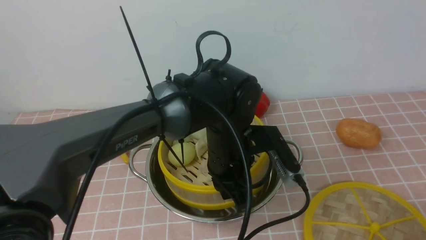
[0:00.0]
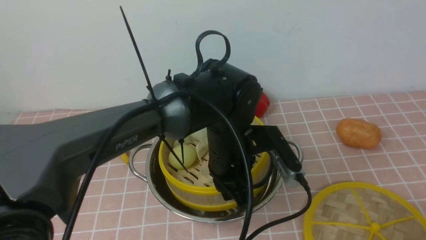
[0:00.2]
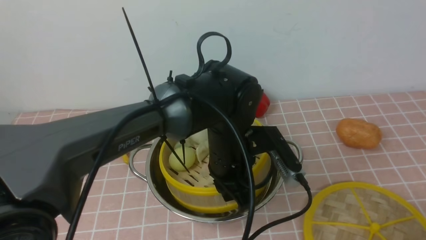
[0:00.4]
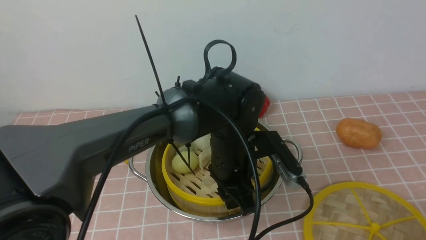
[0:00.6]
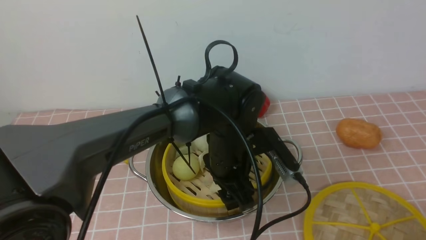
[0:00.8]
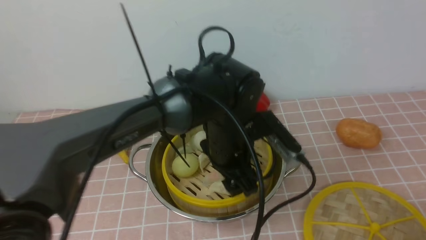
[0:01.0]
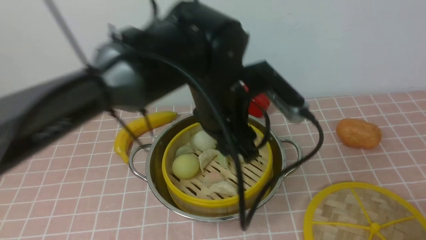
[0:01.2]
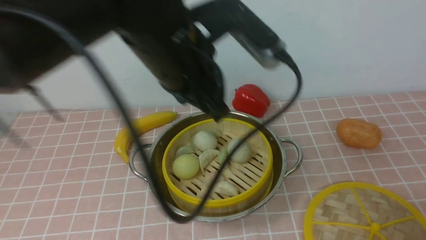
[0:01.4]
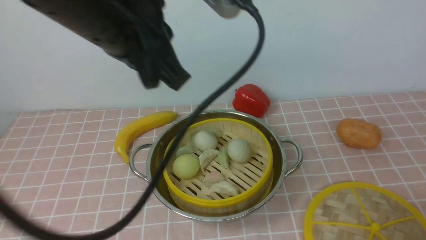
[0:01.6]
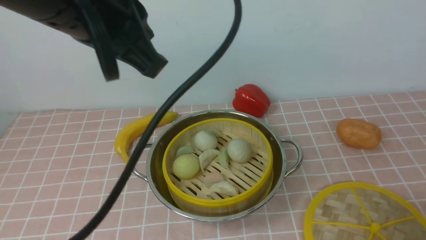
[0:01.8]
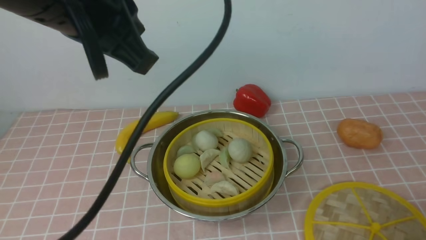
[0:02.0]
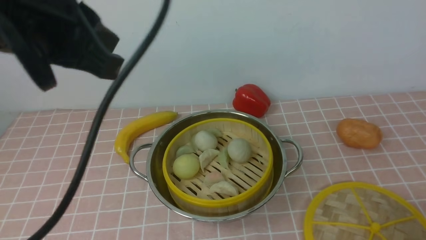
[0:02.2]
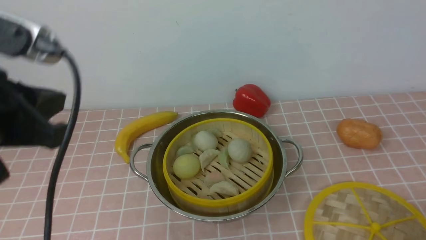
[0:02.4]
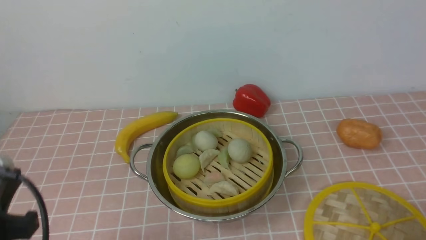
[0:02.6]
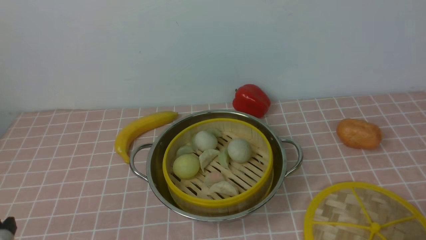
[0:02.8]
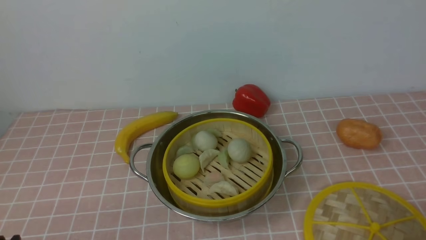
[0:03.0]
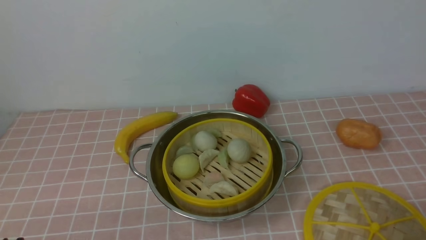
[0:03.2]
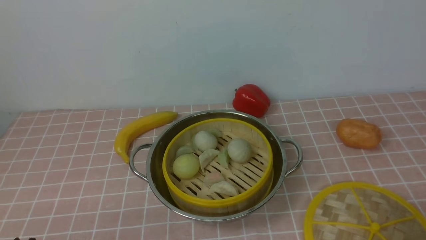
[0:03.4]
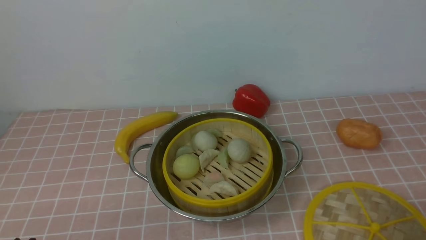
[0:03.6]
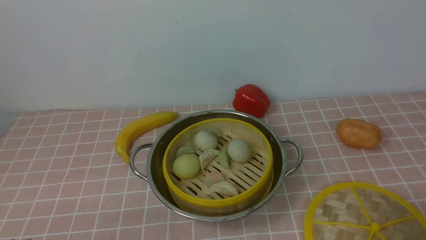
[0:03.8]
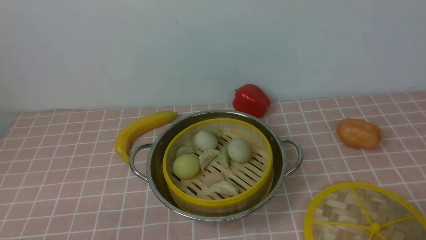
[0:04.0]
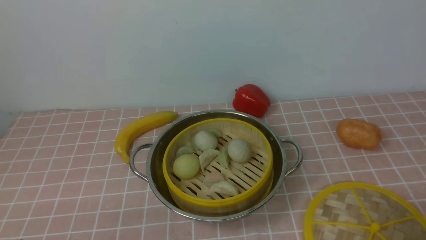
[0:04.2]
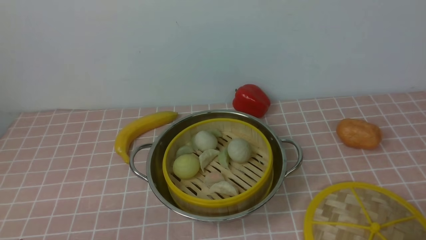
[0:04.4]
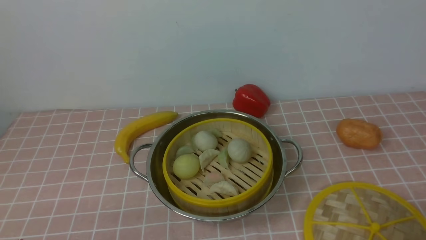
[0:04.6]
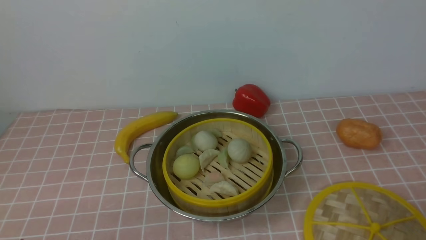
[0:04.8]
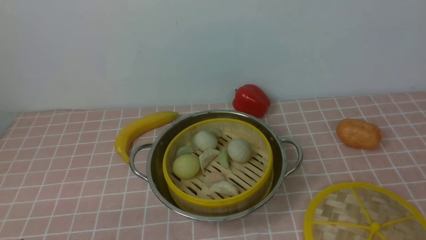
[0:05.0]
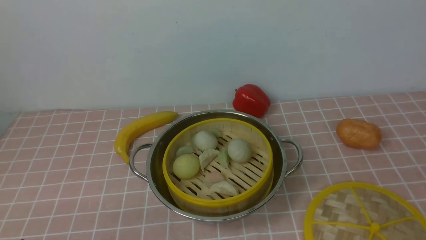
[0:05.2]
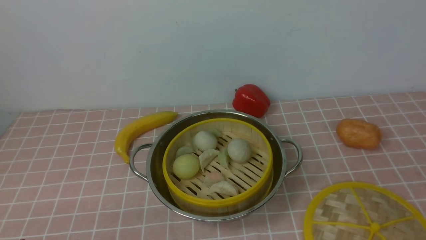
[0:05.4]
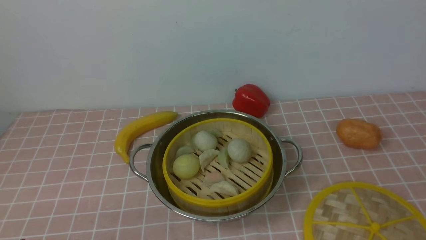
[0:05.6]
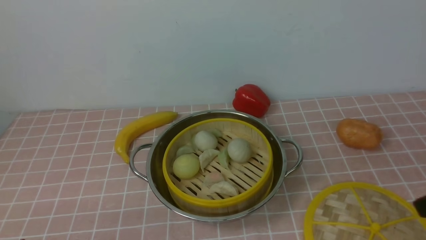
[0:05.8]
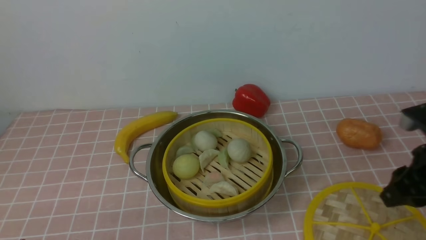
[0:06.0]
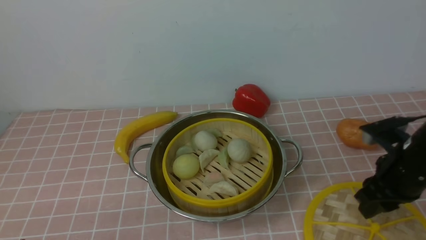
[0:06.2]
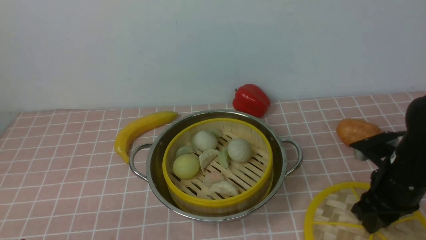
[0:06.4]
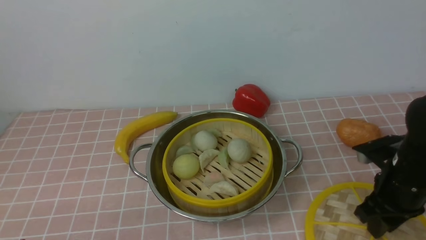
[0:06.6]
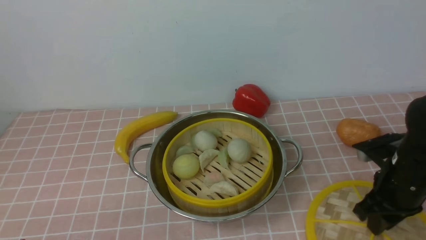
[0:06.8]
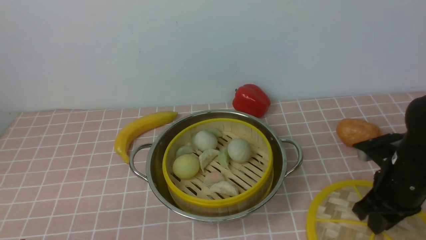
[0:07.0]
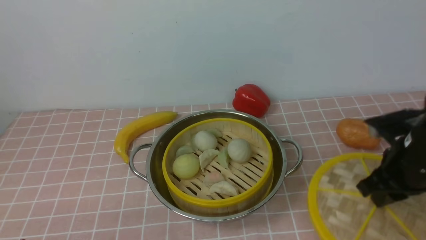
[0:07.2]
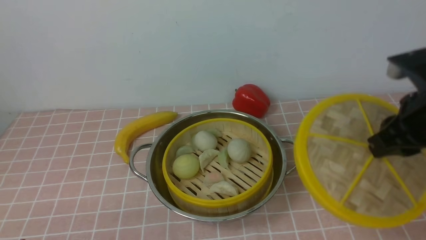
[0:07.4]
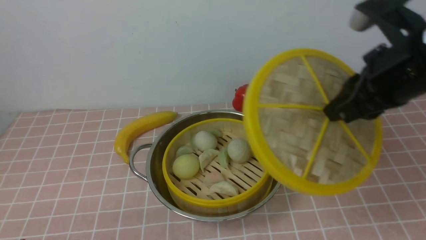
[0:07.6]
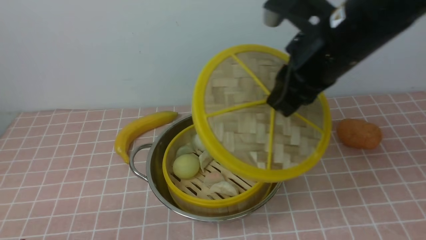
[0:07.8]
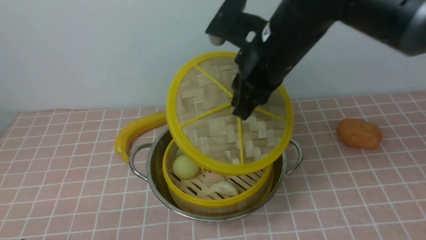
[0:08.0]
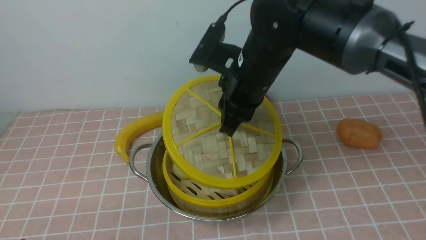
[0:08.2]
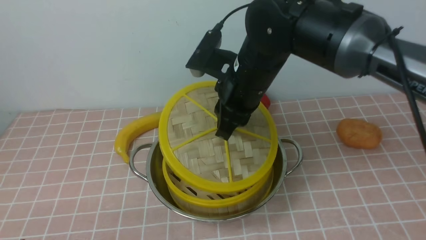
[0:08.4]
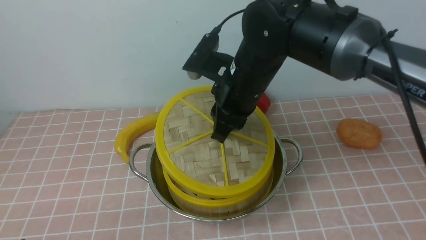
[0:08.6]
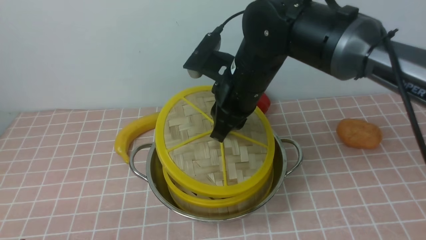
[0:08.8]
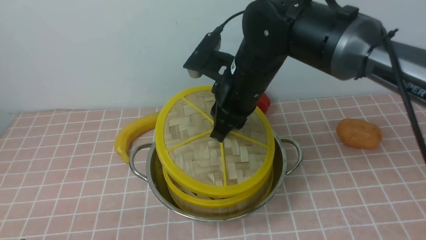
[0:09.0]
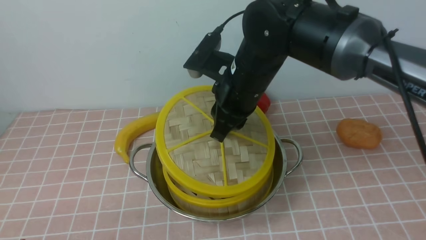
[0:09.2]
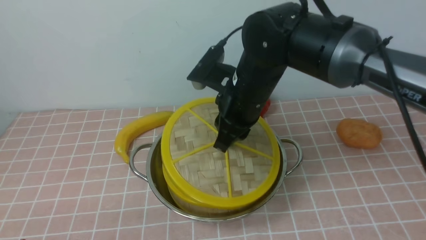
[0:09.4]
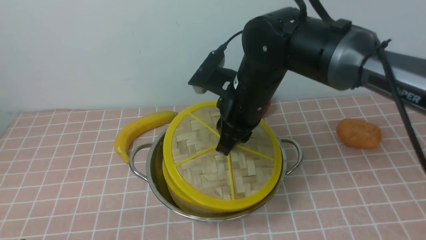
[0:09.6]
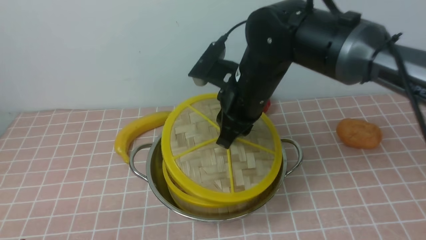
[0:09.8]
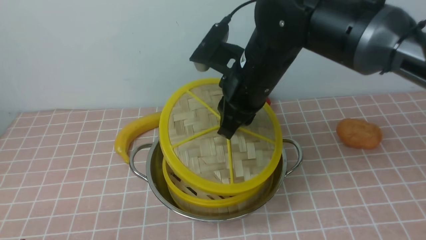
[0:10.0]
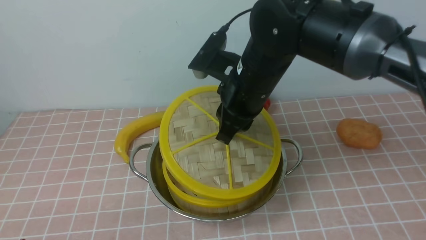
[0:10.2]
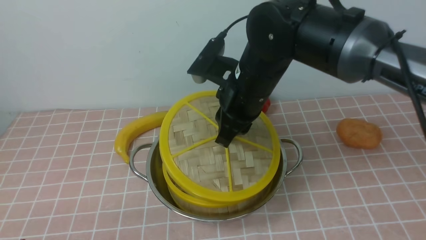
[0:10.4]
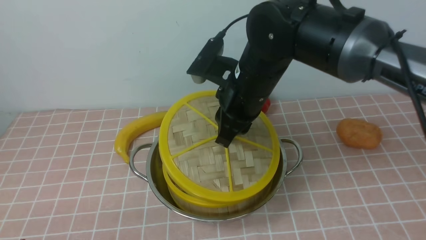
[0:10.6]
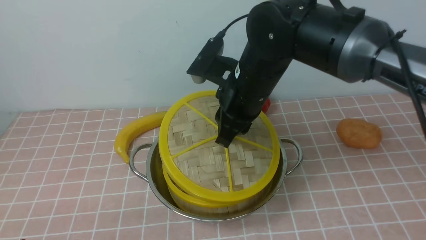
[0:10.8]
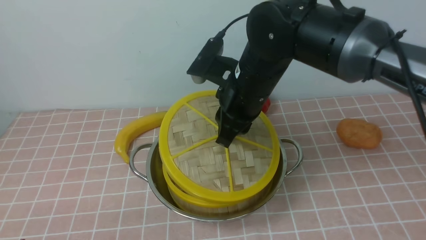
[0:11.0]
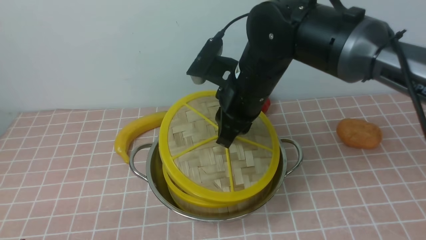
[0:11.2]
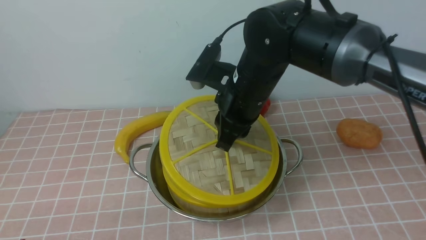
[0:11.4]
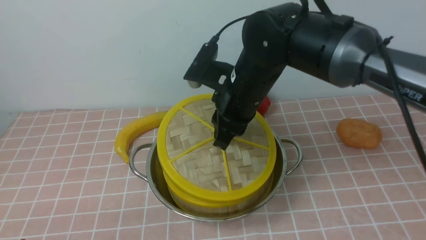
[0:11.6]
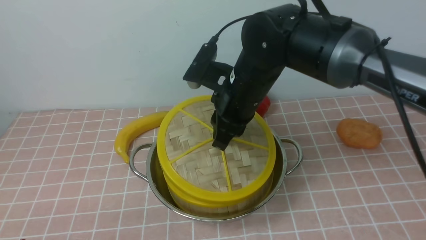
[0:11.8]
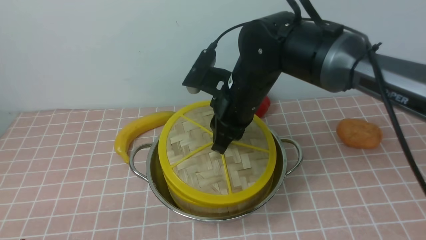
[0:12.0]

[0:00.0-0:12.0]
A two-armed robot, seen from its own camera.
Task of the whole recording: place the steamer in the pot on the pink tablecloth, and put the lid on the steamer.
Step, 0:01.2 to 0:07.0: use the right arm to lift the lid of the steamer.
0:00.0 to 0:01.6: The left gripper moves upward, some 20 cm, and opens, then closes again.
0:01.6 to 0:03.0: The left gripper goes roughly 35 cm downward, backward and to the left.
0:04.4 to 0:06.0: The right gripper goes some 15 cm forward and upward.
0:06.0 to 0:07.6: The right gripper moves to the left, upward and forward, some 10 cm, and closes up.
0:07.6 to 0:09.0: The right gripper goes approximately 20 cm to the left and forward.
0:09.0 to 0:12.0: There are only small adjustments of the grippers.

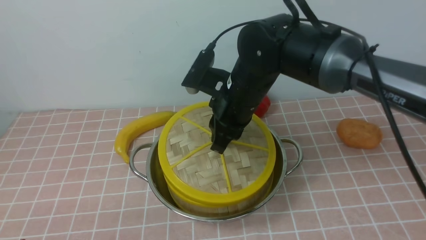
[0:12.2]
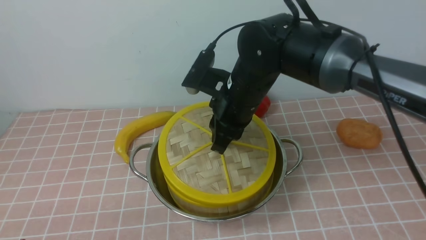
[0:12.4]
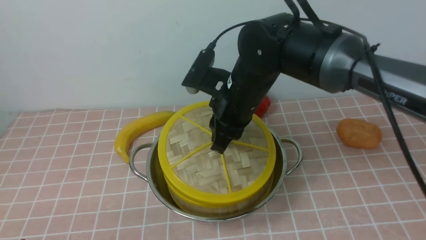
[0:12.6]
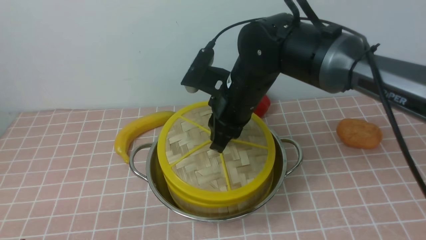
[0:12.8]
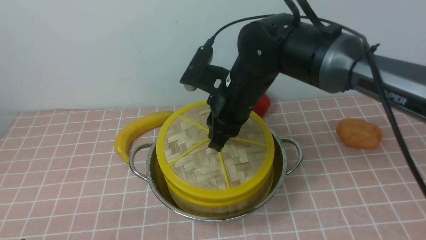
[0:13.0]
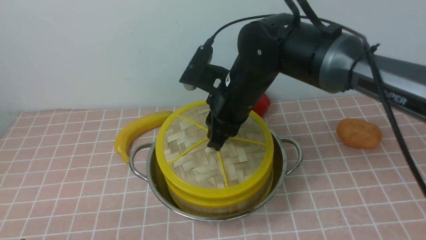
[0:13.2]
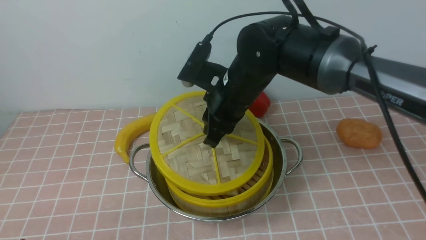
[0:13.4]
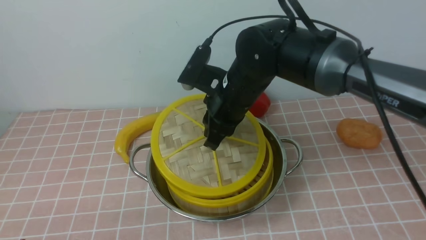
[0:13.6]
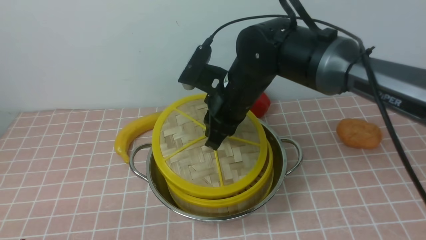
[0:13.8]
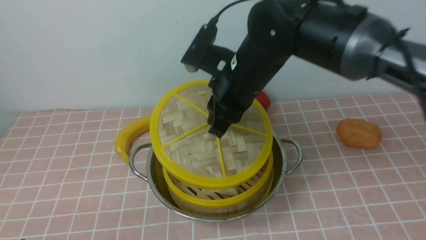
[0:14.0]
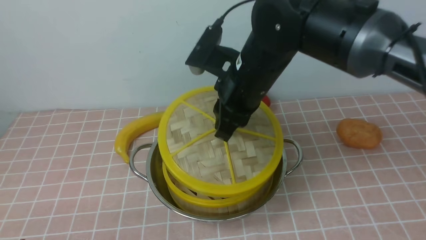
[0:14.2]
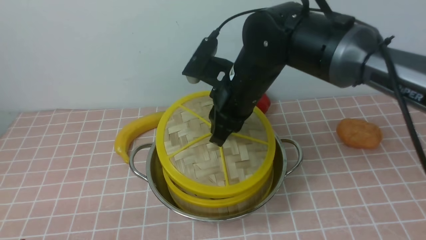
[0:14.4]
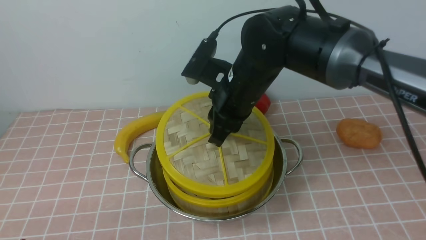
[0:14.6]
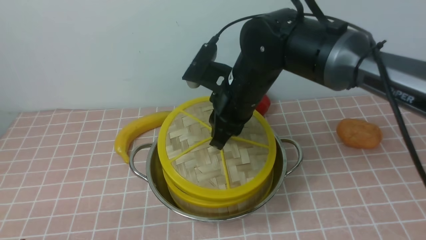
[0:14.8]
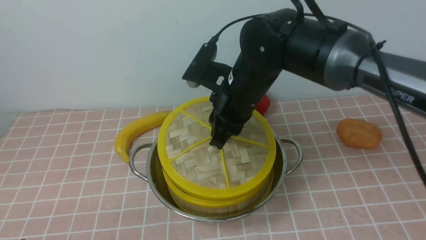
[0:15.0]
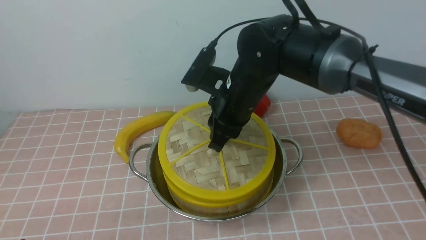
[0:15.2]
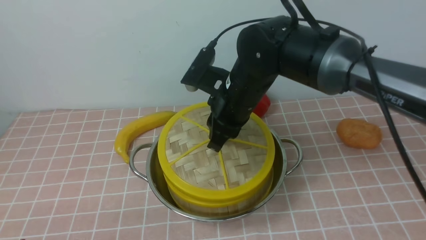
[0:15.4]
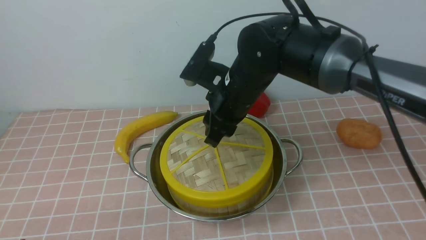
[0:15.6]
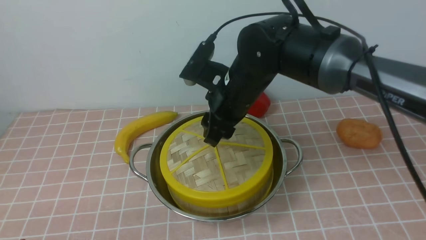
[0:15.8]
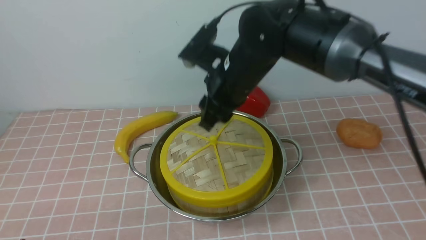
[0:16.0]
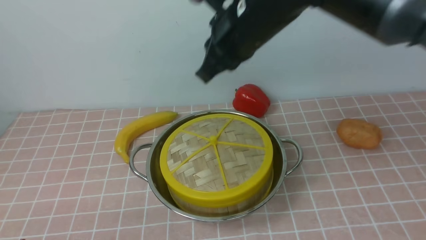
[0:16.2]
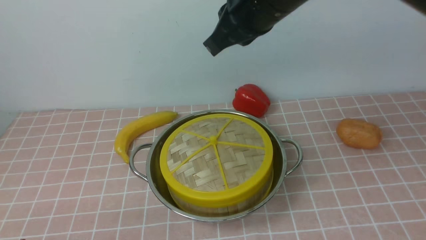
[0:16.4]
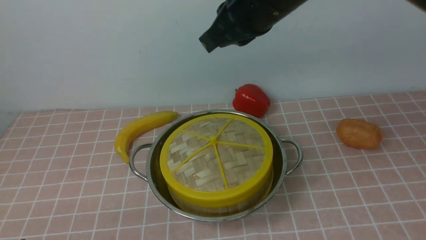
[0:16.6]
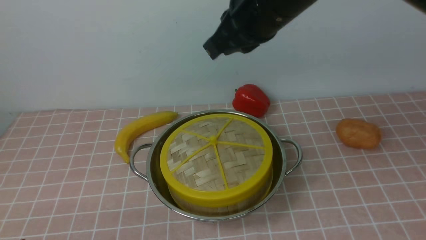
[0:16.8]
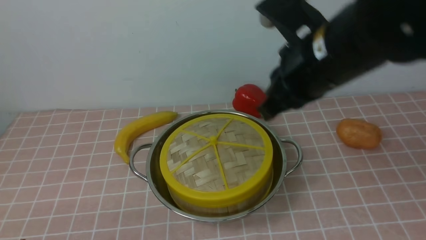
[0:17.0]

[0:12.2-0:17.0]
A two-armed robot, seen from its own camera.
Task of the whole recording: place the steamer in the pot on the pink tablecloth, and put the lid on the steamer.
Step, 0:12.2 to 0:15.8: use the right arm to place the steamer lid on the steamer.
0:12.2 to 0:15.4: The grippers make only small movements.
0:15.4 to 0:17.0: The right gripper heads upward, to the right and backward, covering roughly 15 cm, and closes its fingers.
